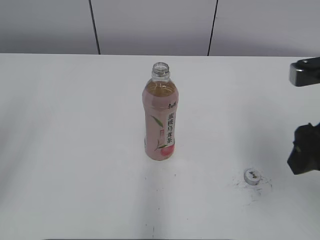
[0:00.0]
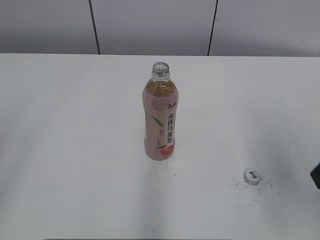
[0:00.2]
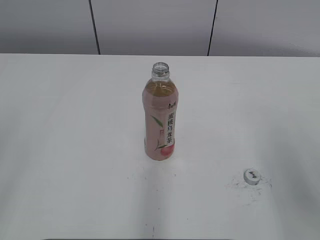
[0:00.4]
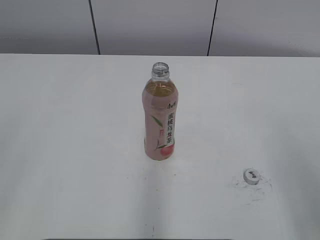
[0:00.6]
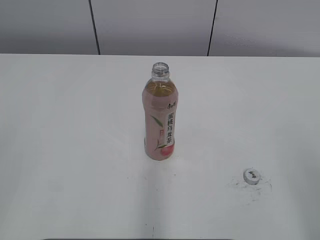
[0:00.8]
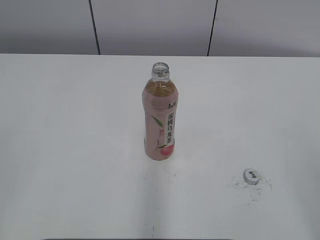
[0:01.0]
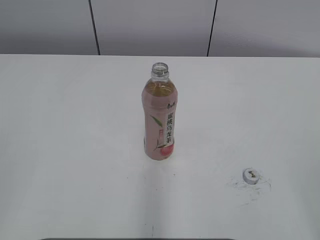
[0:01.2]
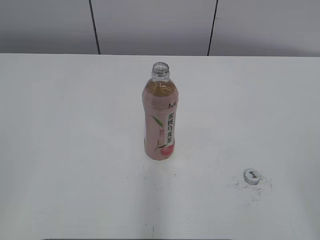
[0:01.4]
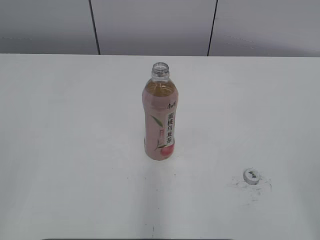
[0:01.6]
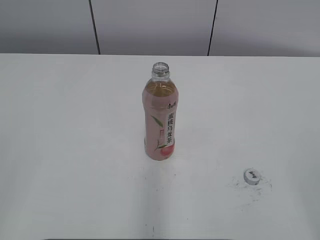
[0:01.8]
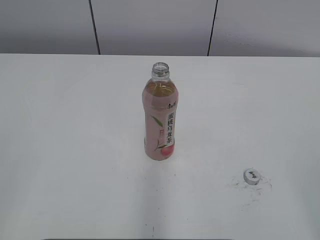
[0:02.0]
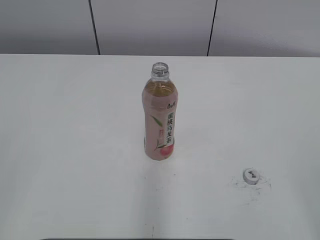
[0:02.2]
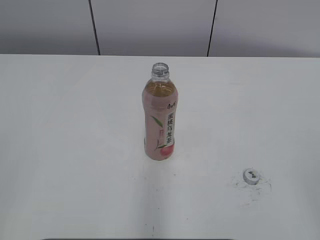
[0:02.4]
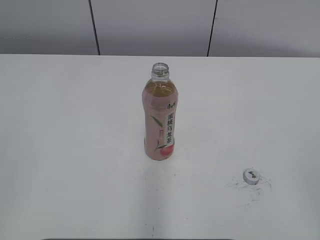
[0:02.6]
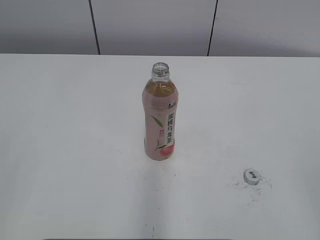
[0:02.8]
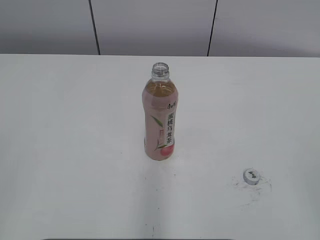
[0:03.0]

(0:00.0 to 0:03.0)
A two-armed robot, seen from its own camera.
0:00.0 - 0:01.6: The right gripper travels backward and to the right by approximately 25 cm.

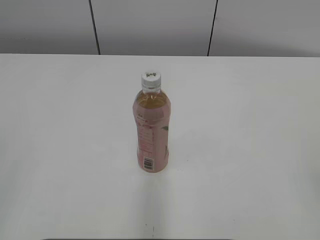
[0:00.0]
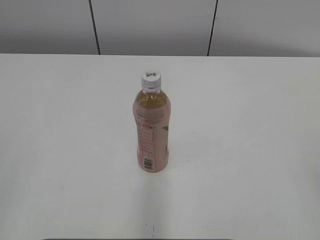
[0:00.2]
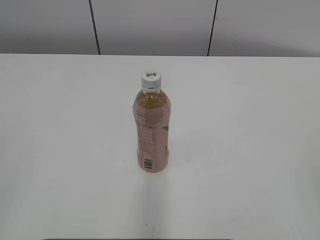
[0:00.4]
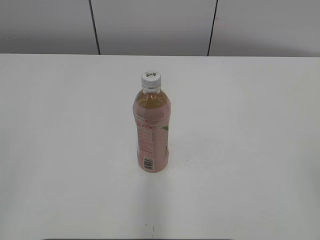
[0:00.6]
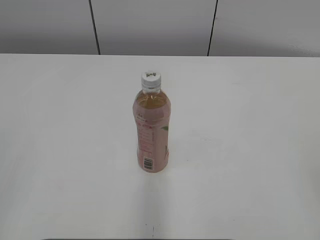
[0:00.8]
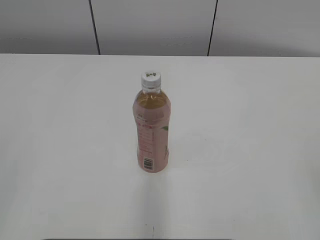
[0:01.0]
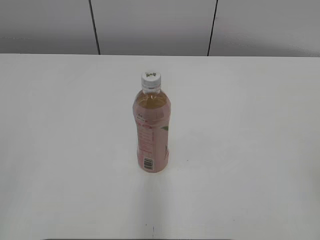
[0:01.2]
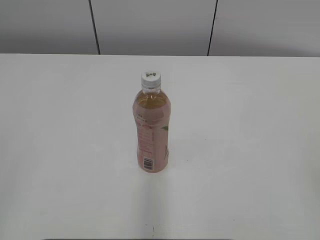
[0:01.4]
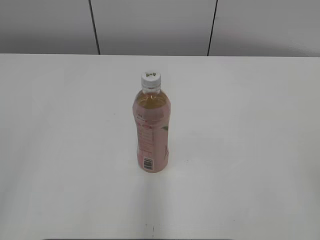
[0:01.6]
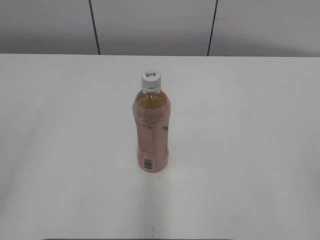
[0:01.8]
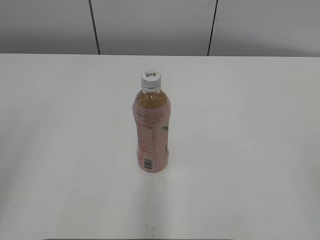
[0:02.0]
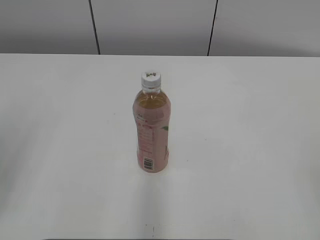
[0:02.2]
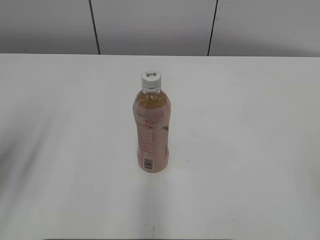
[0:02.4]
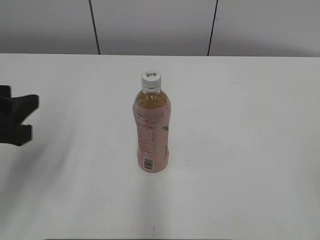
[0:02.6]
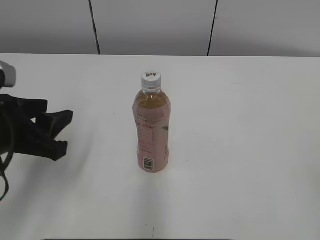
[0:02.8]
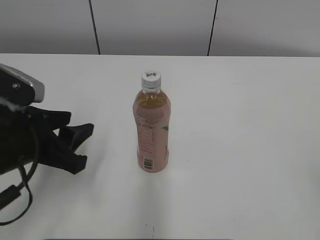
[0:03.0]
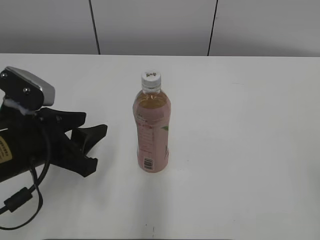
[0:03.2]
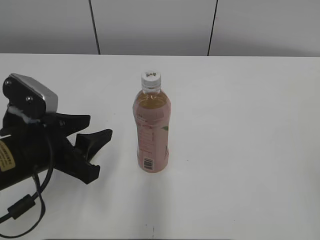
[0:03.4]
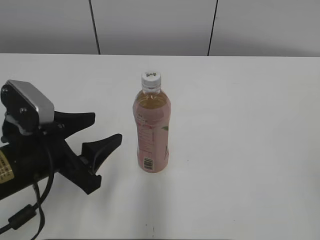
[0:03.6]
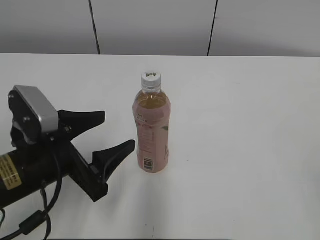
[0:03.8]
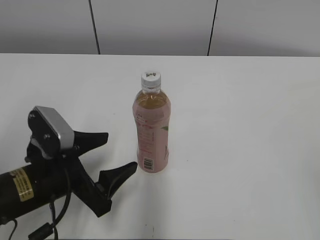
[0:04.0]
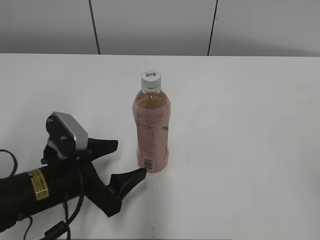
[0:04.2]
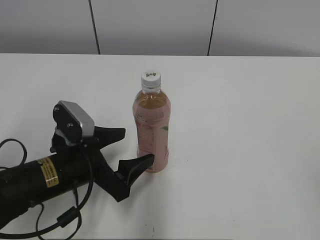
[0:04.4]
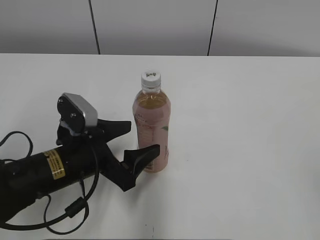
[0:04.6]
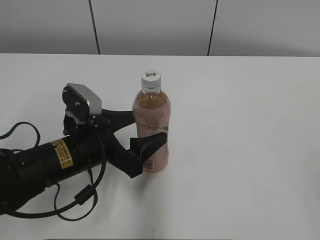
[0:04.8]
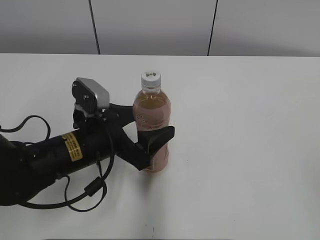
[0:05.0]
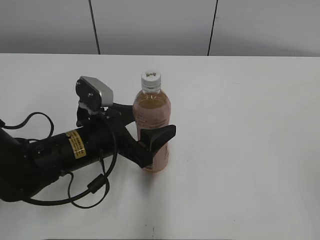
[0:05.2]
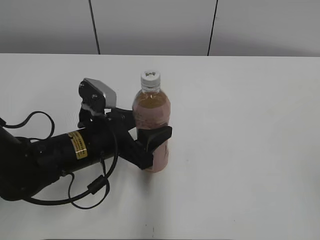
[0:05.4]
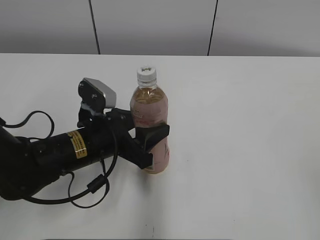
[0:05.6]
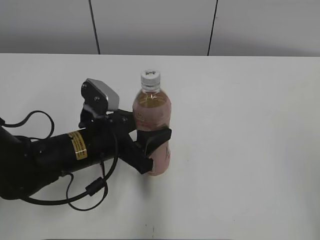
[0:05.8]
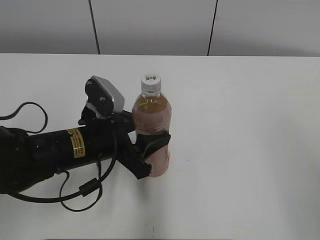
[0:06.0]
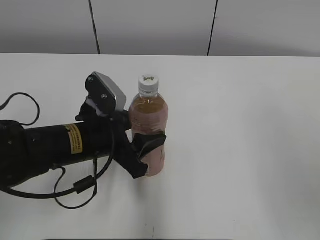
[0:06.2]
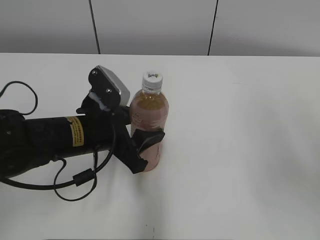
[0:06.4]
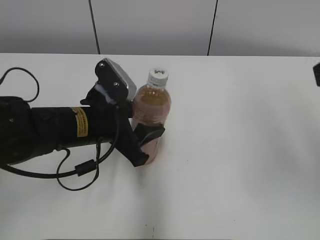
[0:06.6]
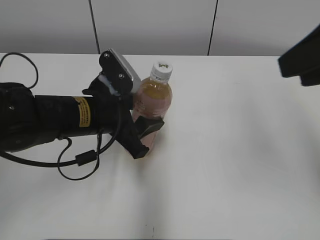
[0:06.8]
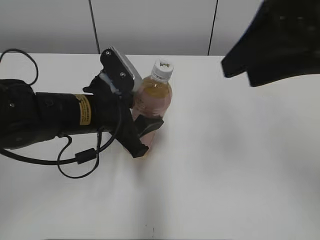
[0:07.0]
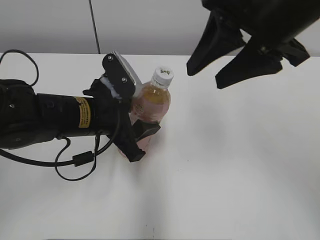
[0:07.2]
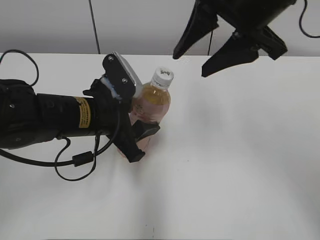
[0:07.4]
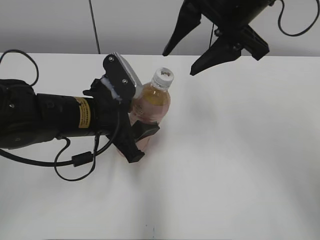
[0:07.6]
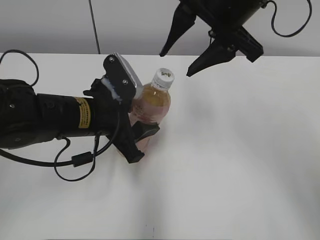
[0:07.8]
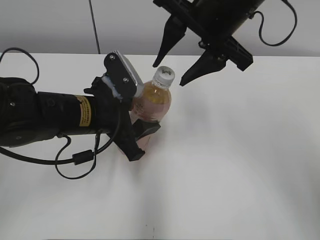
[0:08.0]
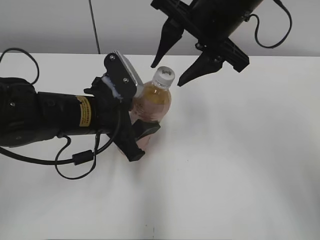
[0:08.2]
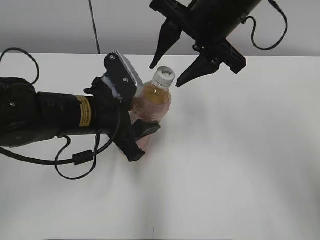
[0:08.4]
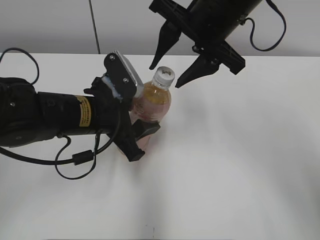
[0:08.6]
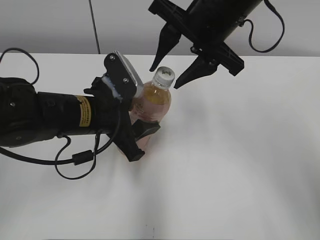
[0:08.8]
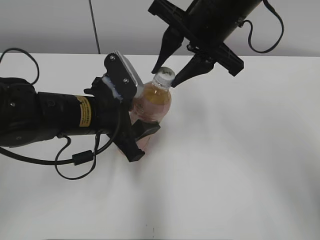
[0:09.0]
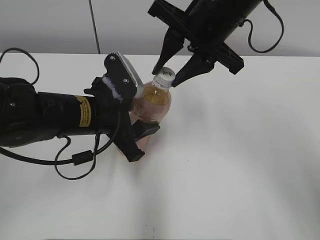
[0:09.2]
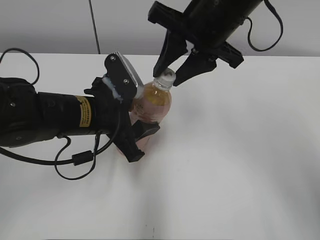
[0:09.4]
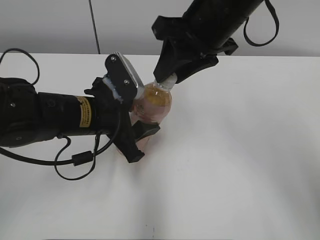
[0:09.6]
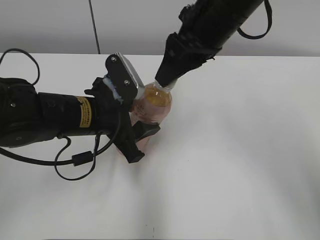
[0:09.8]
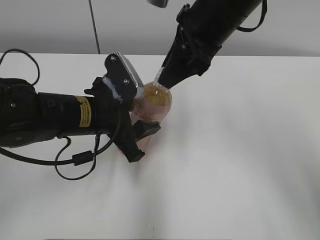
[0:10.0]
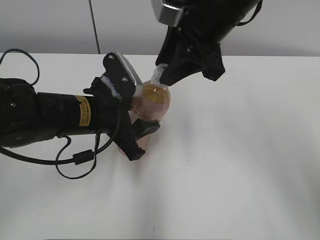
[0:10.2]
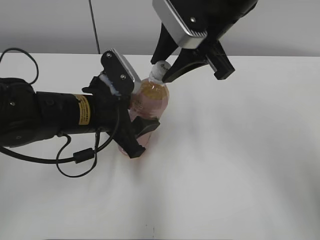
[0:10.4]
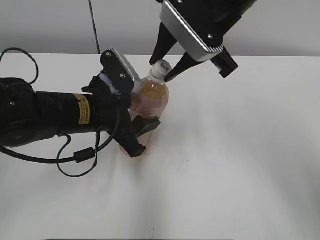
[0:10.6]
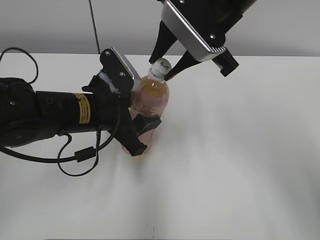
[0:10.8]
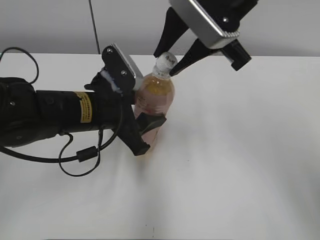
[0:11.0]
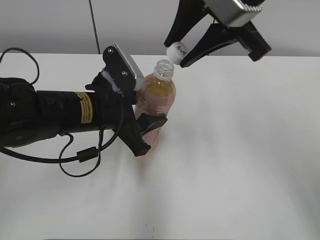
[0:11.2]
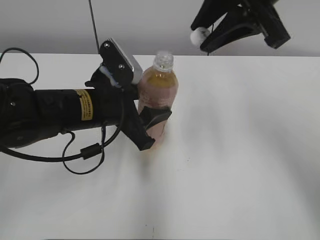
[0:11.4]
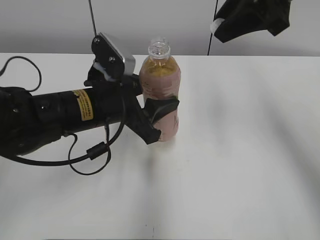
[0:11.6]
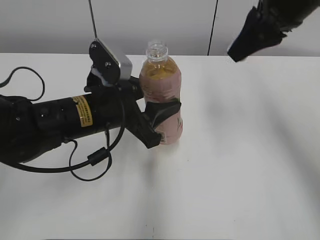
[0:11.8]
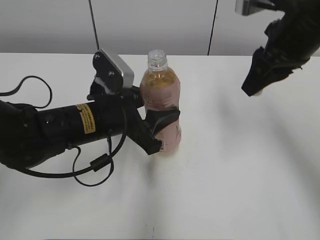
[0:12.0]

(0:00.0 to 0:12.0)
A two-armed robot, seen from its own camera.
Step, 0:00.0 - 0:06.0: Grab the Peach Oolong Tea with the left hand.
Step, 0:09.0 - 0:11.2: Secure the Peach Oolong Tea with the left hand.
0:01.6 - 0:03.0: The left gripper travels forward, downward and to the right by approximately 25 cm.
0:03.0 - 0:04.4: The left gripper travels downward and to the right by about 10 cm, and opens.
0:04.4 - 0:06.0: The left gripper moves approximately 5 cm, and closes. The right gripper moves forward and upward, roughly 10 cm.
0:06.0 - 0:07.6: The right gripper moves forward and to the left, roughly 30 cm.
0:07.6 - 0:09.0: The right gripper closes its fingers.
0:10.4 - 0:12.0: The right gripper travels to the right by roughly 10 cm.

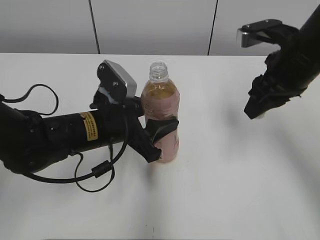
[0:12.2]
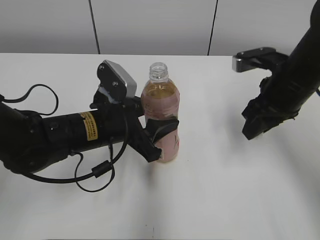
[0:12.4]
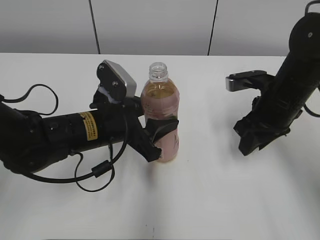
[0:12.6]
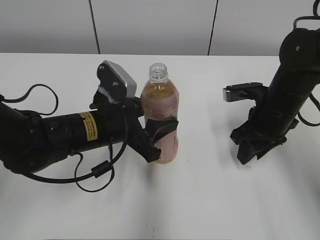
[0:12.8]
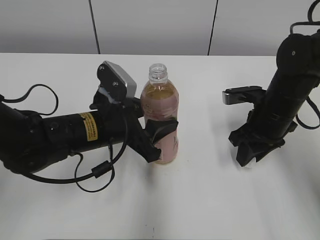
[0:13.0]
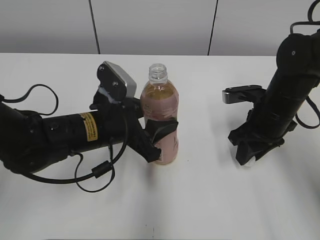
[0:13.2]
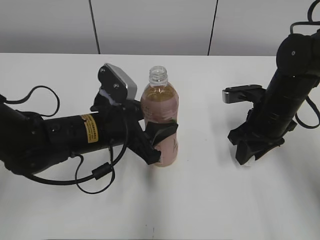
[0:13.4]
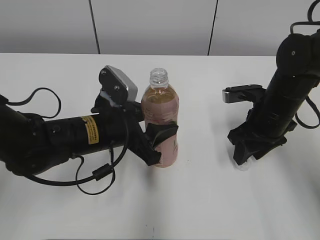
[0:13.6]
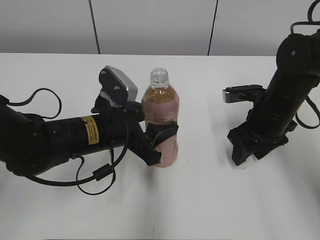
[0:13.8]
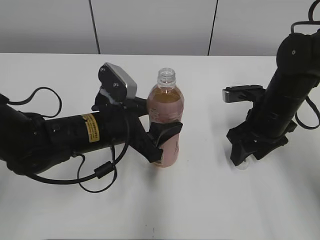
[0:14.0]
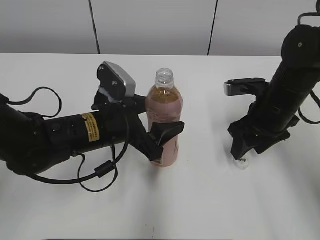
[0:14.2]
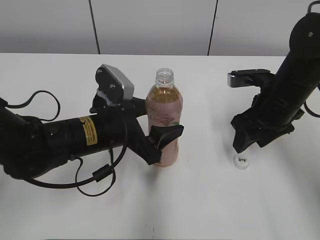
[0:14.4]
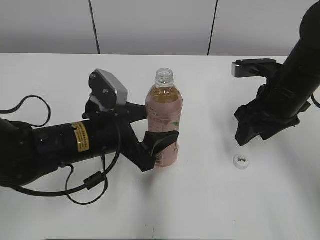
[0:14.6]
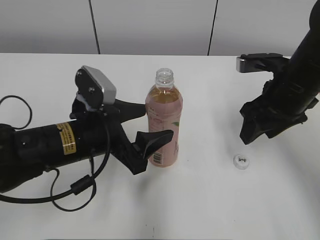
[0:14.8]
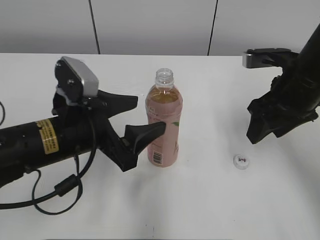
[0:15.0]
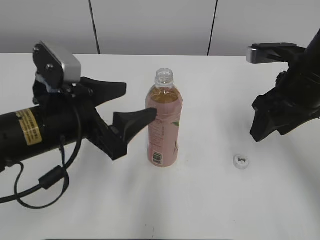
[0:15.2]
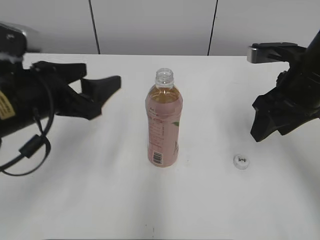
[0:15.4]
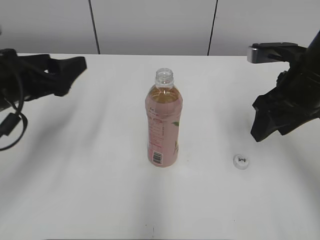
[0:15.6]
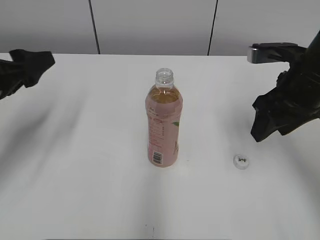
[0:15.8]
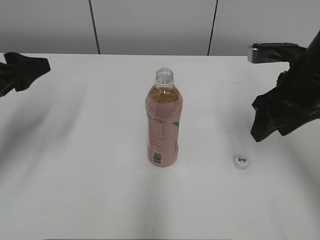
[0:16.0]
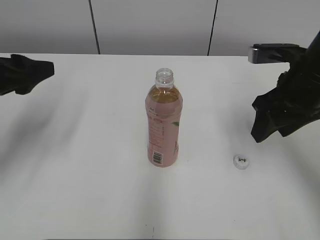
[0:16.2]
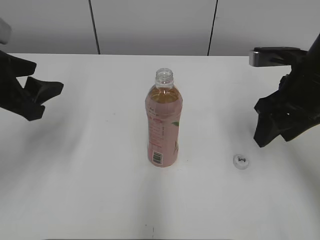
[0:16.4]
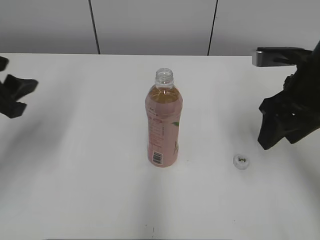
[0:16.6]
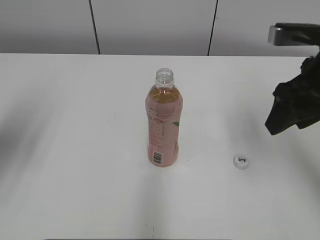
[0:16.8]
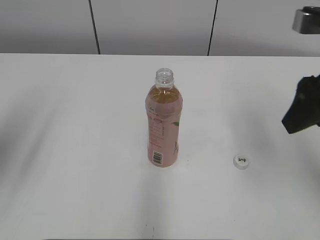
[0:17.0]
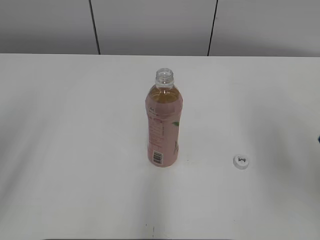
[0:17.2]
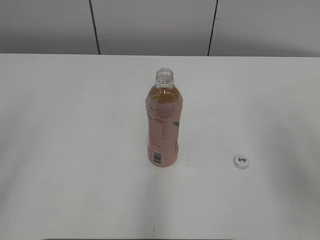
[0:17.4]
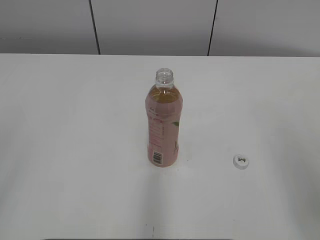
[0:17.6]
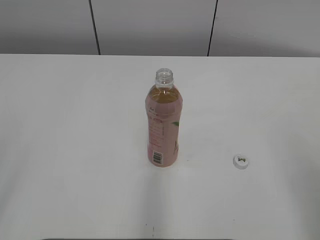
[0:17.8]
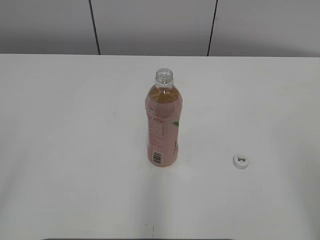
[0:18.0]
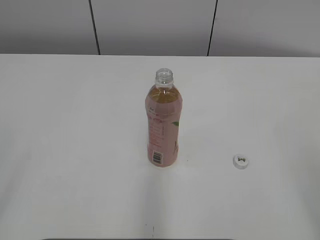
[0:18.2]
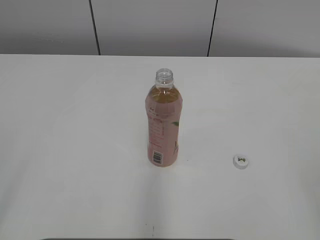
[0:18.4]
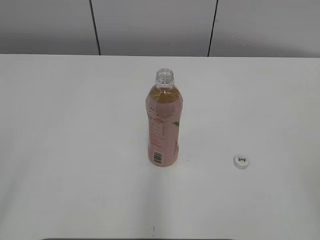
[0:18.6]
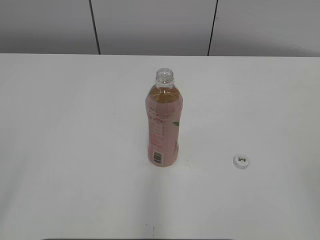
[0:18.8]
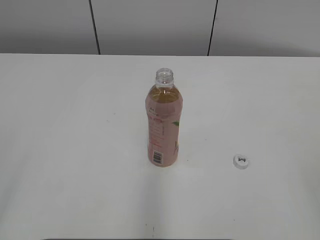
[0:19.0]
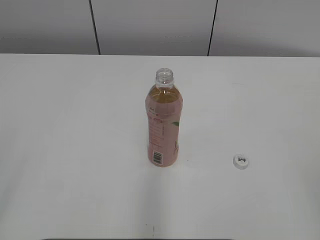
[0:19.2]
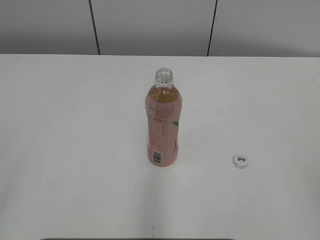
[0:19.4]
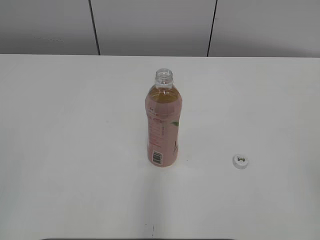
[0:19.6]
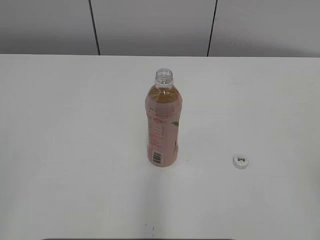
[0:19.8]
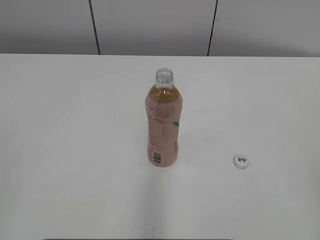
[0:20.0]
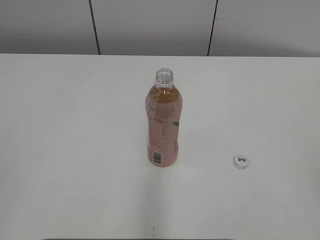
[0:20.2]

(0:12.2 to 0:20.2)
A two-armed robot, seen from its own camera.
Step, 0:12.2 - 0:14.6: Place the bottle cap on the right.
Step, 0:14.8 - 0:15.6: Place the Peach Oolong Tea with the left hand.
0:12.2 - 0:13.8: The right gripper shifts about 10 cm downward, and opens its fingers.
0:13.8 - 0:15.4: The left gripper is displaced upward and to the left by approximately 10 cm, and opens up. The right gripper moves upward, roughly 10 cm.
0:15.4 - 0:17.0: The right gripper shifts roughly 10 cm upward and backward; the left gripper heads to the left and upward, covering about 15 cm.
0:17.0 - 0:18.6: Both grippers move backward, roughly 20 cm. The right gripper closes up.
